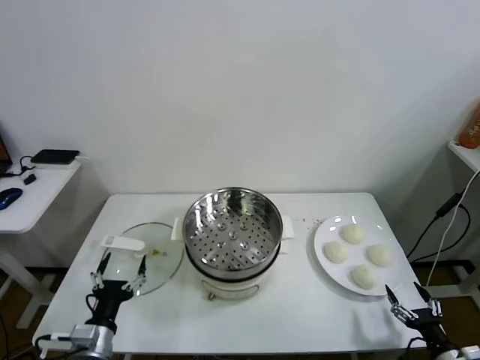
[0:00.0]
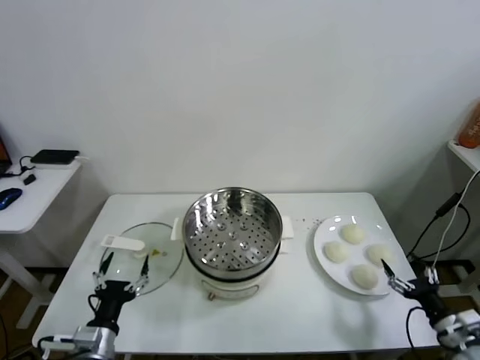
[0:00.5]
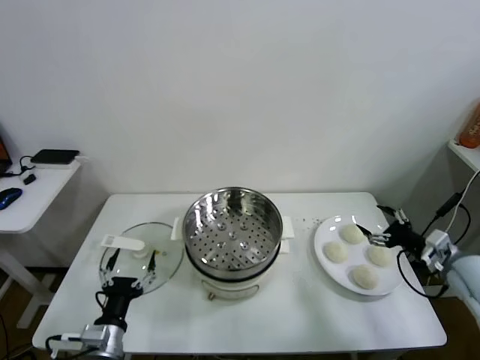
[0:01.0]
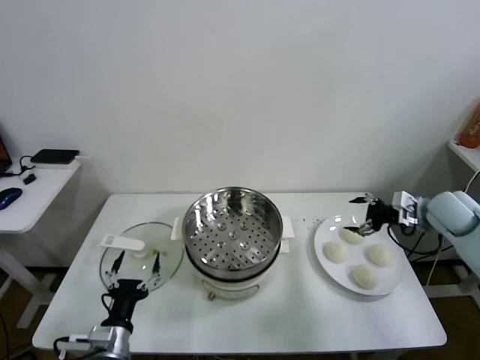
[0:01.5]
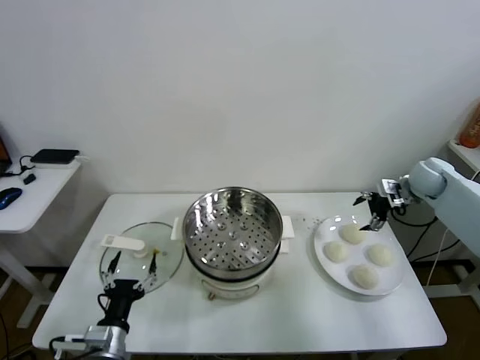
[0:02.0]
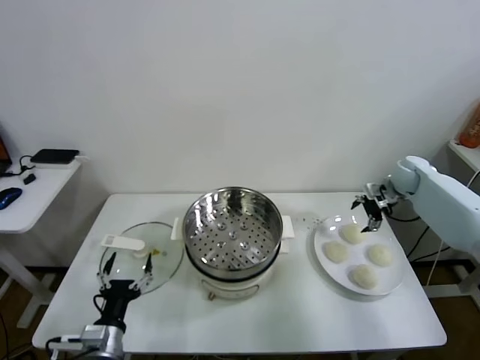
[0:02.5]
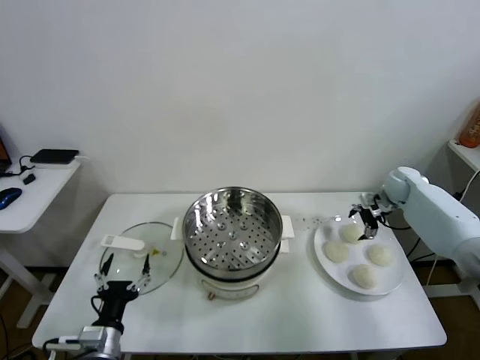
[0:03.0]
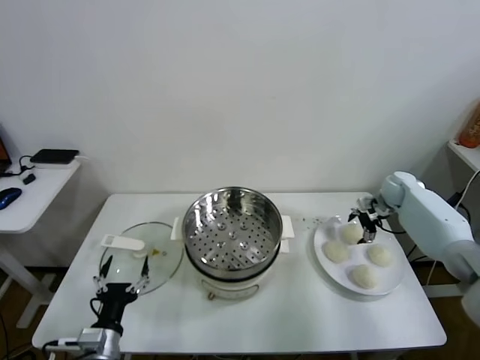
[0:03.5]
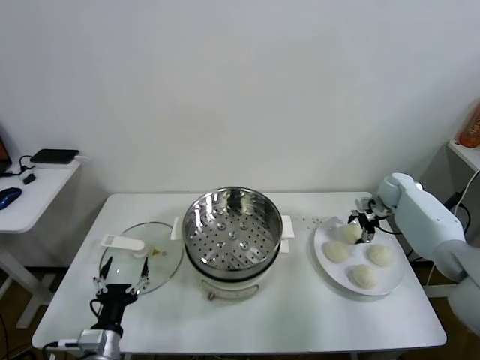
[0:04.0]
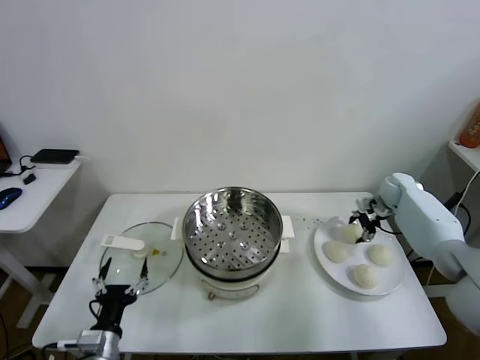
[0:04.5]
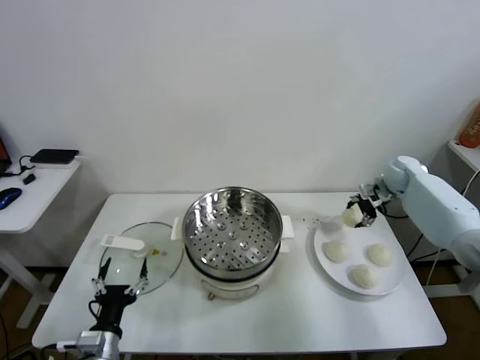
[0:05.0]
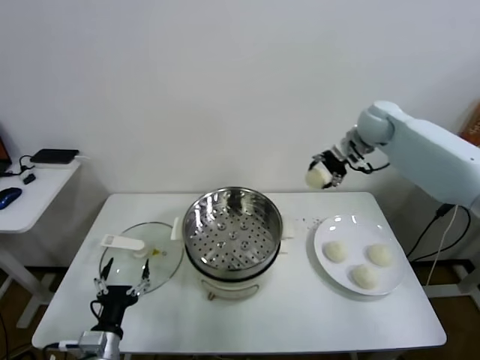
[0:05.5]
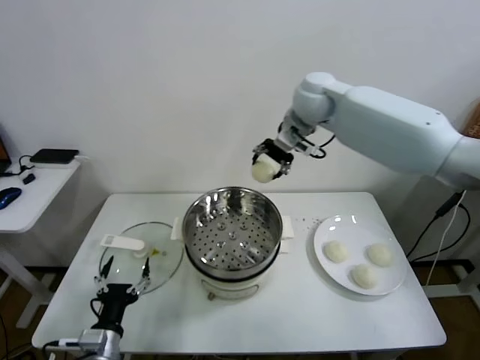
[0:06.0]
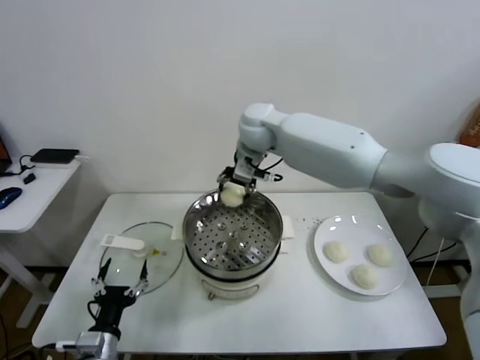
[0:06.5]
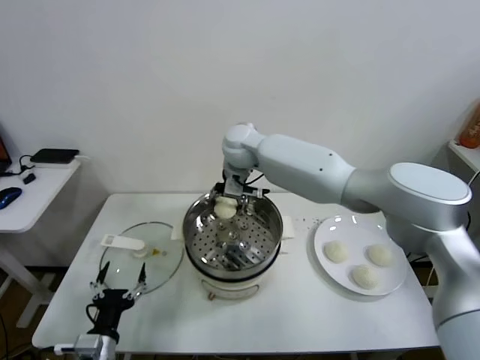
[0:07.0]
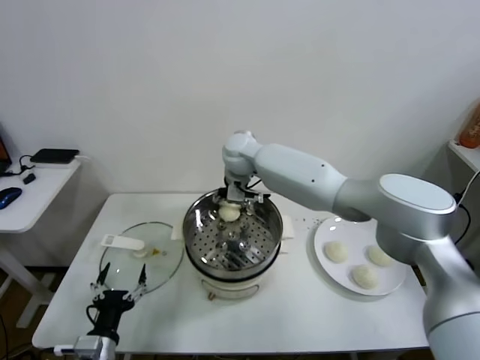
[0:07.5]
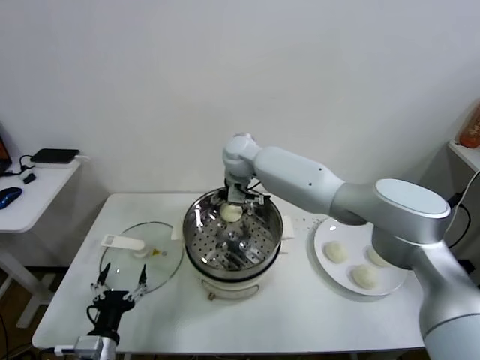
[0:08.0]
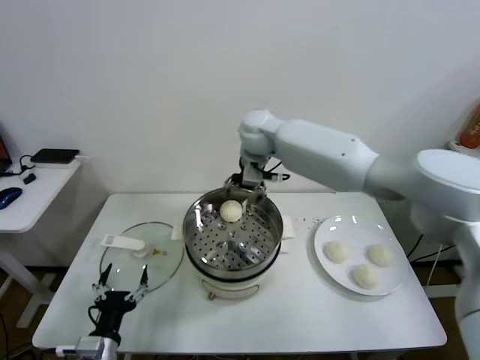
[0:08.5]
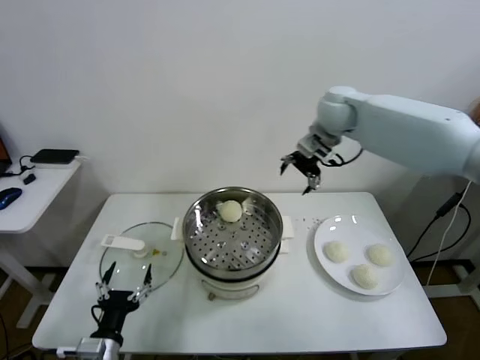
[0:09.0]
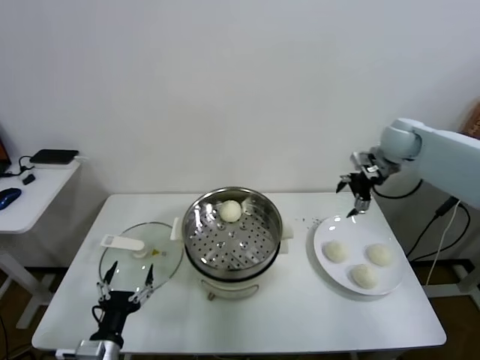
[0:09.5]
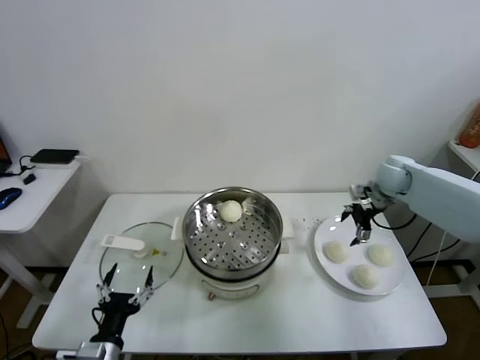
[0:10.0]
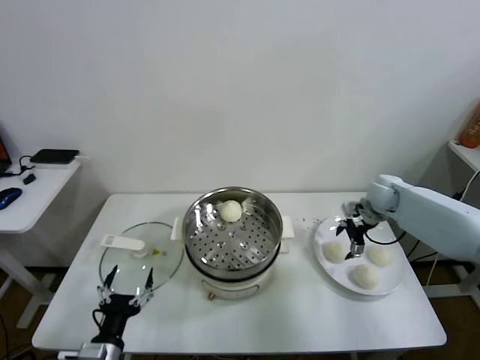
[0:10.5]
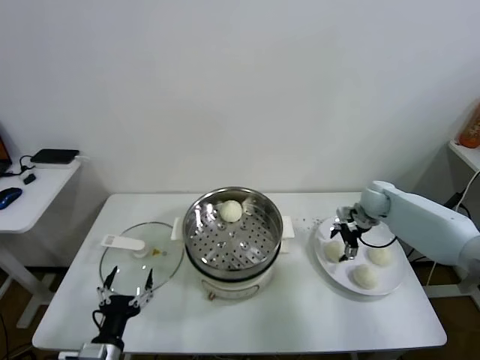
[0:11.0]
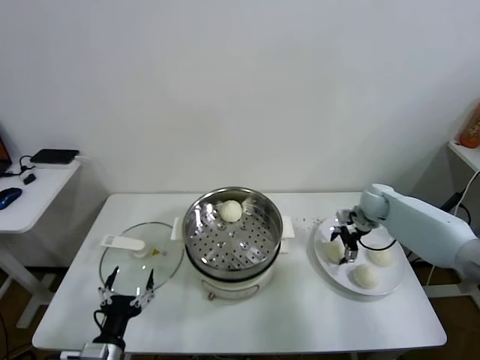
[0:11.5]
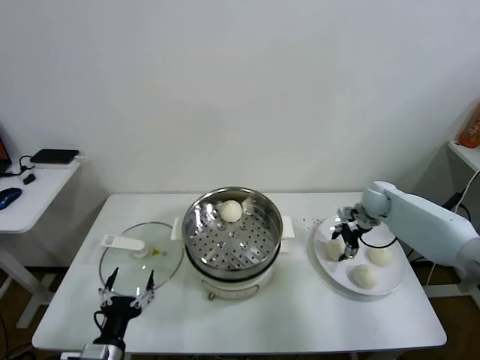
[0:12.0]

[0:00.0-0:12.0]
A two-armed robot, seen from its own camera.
Task of the whole recording: take steamed baozi put them in steamer.
Step, 0.0 to 4.0 s: Grasp the baozi in the plate with right gripper.
Step, 4.5 to 8.0 s: Place the baozi on the steamer with right gripper.
Step, 8.5 to 12.0 s: Grasp the baozi in the plate with right gripper.
2.0 to 4.0 s: The right gripper moves downward, some 10 cm, and closes.
4.0 to 6.0 s: The right gripper moves to the left and upward, approximately 40 cm.
6.0 to 8.0 s: The right gripper goes approximately 20 cm downward and to the left, and opens its fingers.
8.0 to 10.0 s: The right gripper goes about 40 cm to the right.
10.0 to 12.0 s: The right gripper shifts roughly 5 cm downward, and closes its fingers.

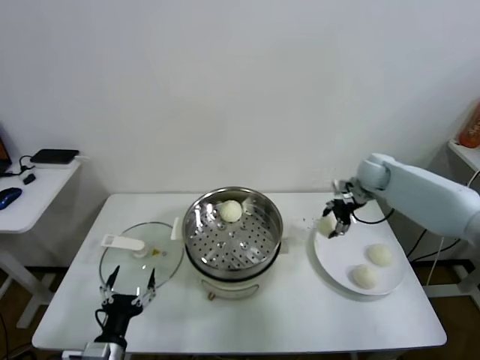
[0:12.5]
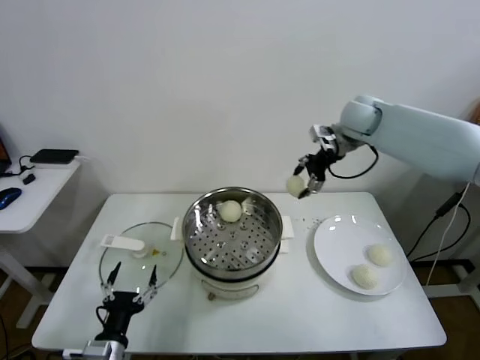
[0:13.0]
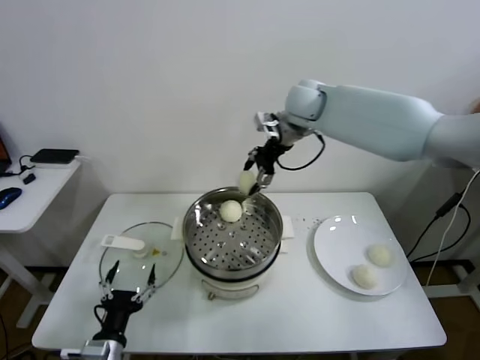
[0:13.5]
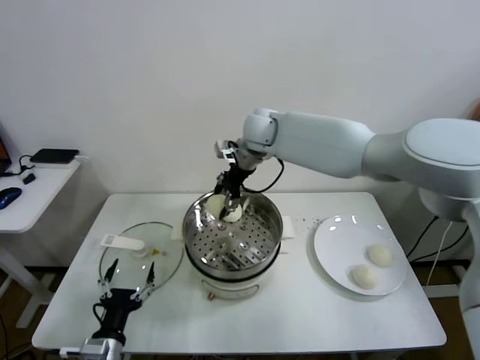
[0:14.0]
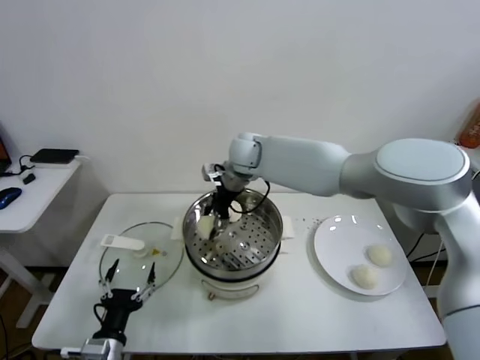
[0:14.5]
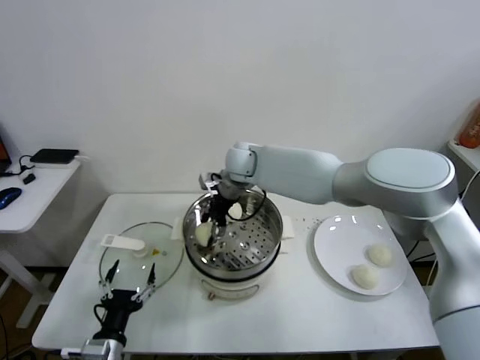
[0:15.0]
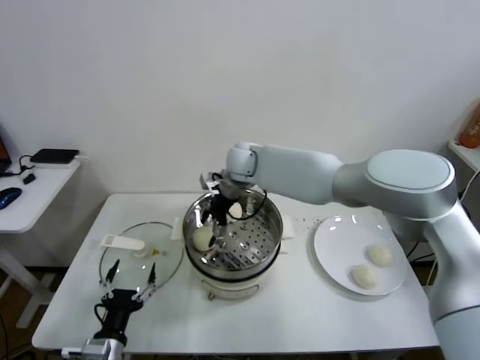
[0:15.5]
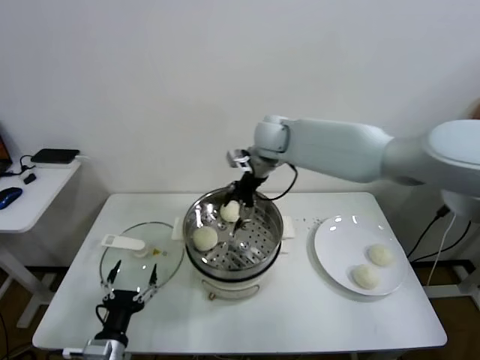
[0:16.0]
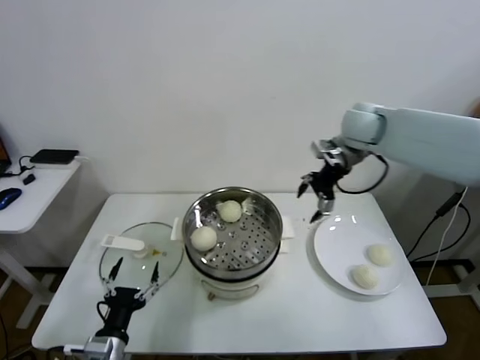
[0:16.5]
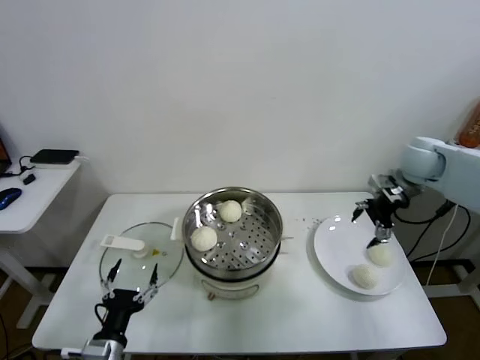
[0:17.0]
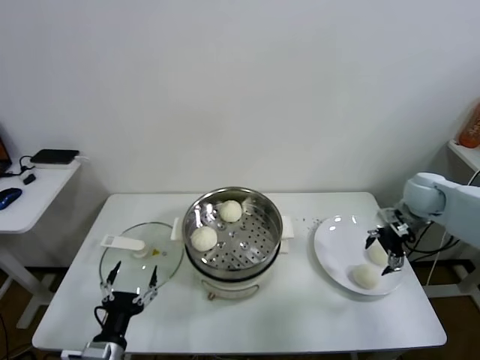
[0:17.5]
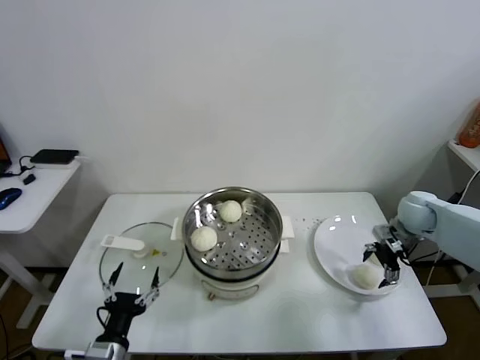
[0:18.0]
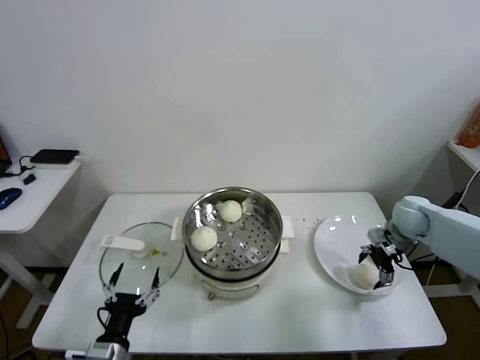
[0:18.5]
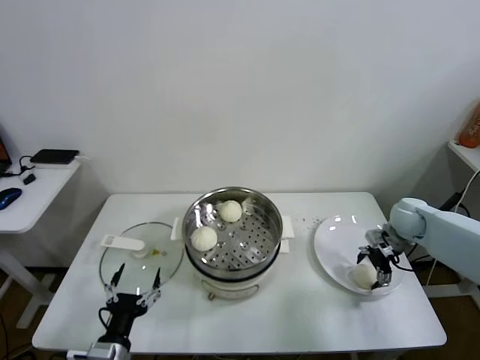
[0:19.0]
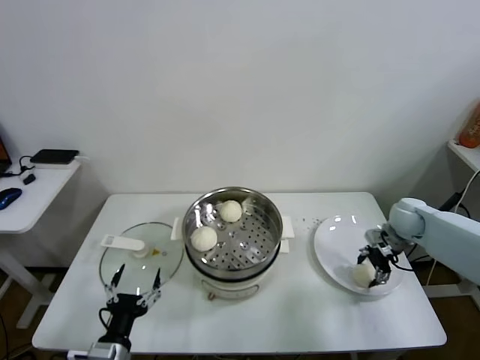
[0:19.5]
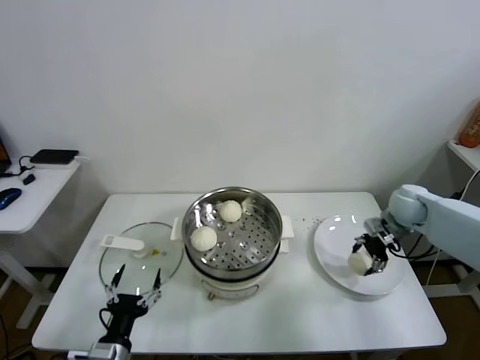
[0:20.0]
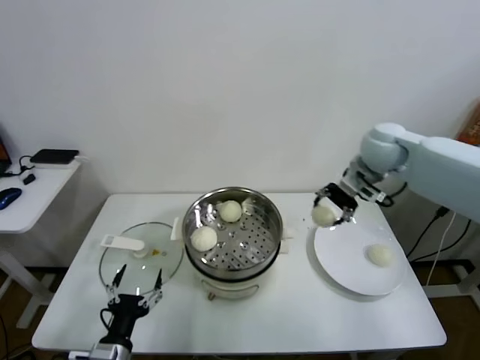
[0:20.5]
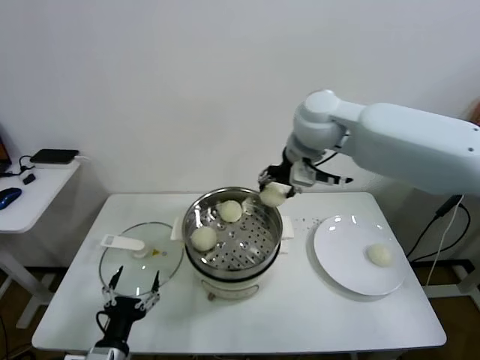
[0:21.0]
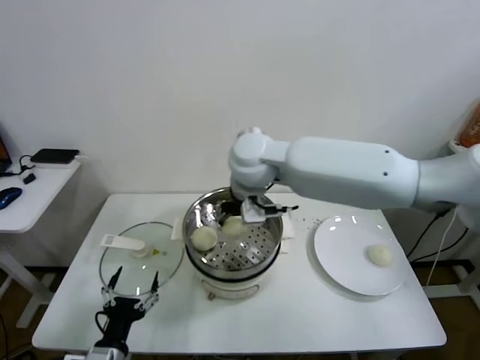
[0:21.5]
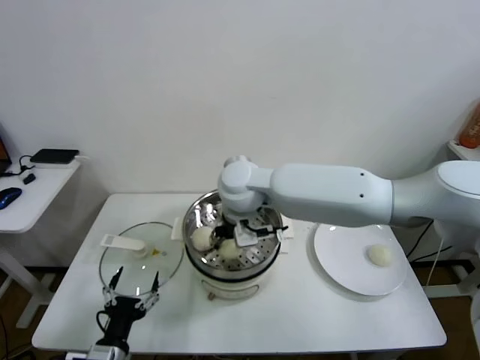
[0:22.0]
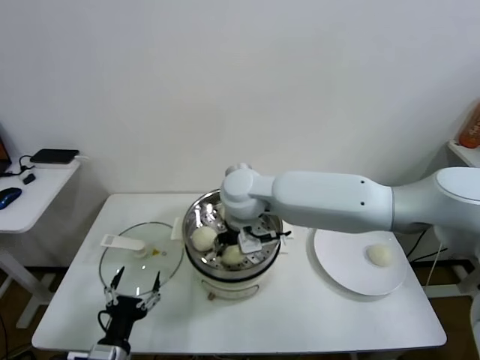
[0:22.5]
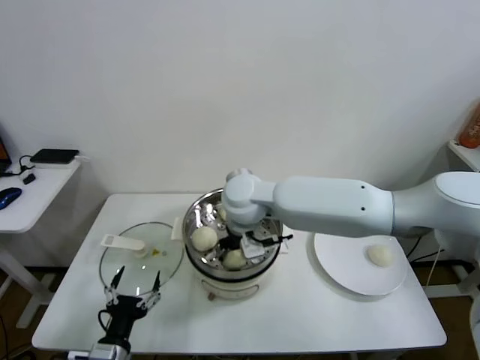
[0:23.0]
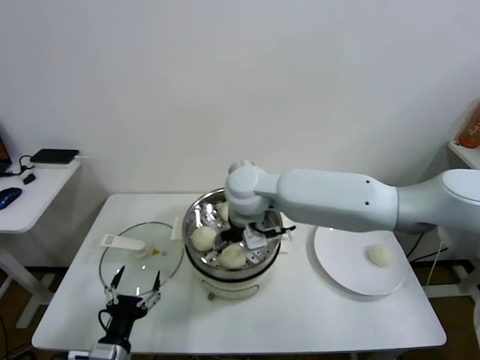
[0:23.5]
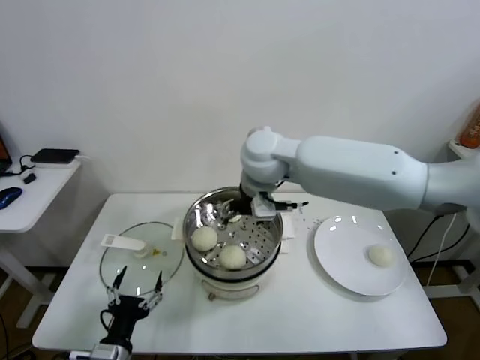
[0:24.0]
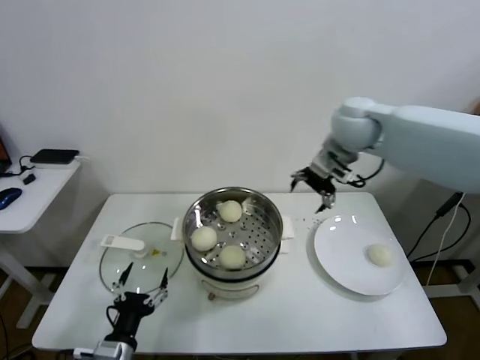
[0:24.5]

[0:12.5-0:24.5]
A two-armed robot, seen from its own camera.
Task of the whole recording: take steamed baozi put them in steamer.
Step, 12.5 to 15.5 s: Place the baozi on the steamer with right gripper.
Step, 16.0 to 19.0 s: Grasp the baozi in the plate with right gripper.
Step, 20.0 to 23.0 s: Place the baozi on the steamer with right gripper.
12.5 to 14.5 s: The right gripper goes some 35 cm to the left.
14.5 to 16.5 s: The right gripper travels to the right by roughly 25 cm, and opens.
16.5 to 18.5 s: The right gripper shifts roughly 25 cm downward and to the right.
18.5 to 20.5 s: The right gripper heads upward and to the left, covering some 25 cm, and closes.
20.5 to 22.5 s: The right gripper is displaced to the left by some 30 cm.
22.5 to 24.5 s: The right gripper heads to the right and upward, covering about 25 cm, and opens up.

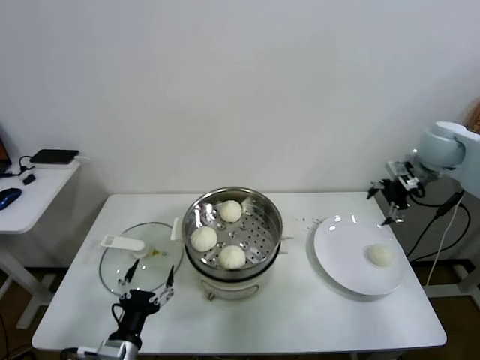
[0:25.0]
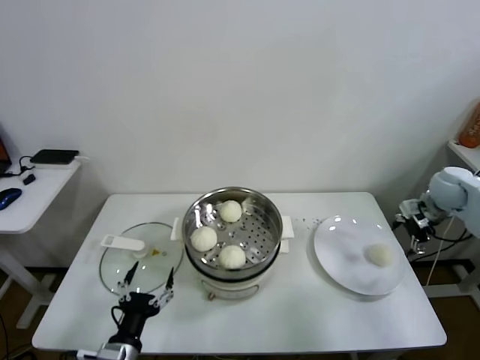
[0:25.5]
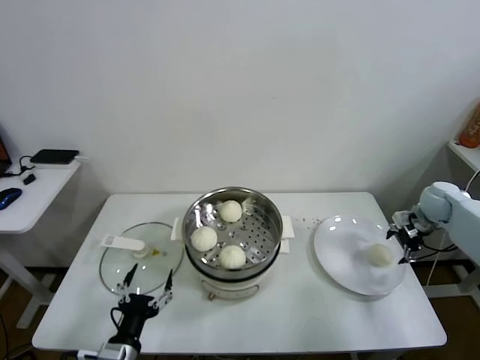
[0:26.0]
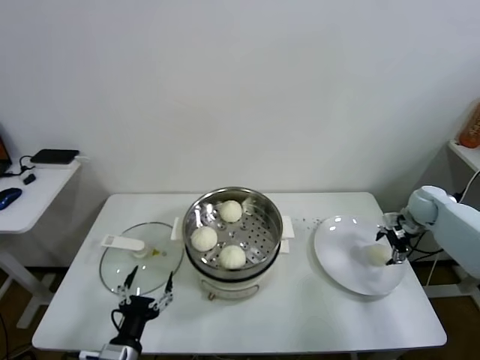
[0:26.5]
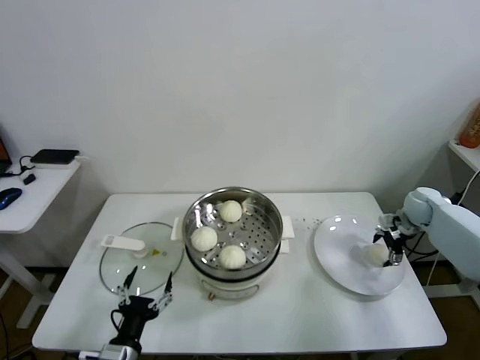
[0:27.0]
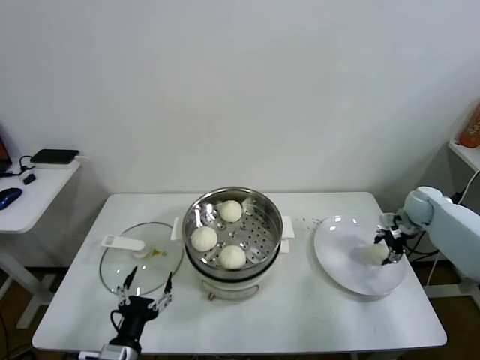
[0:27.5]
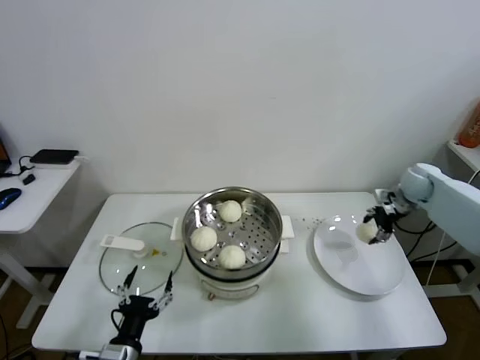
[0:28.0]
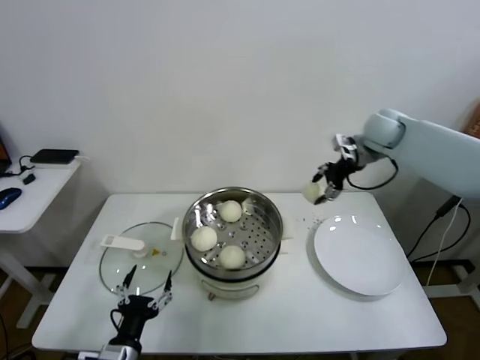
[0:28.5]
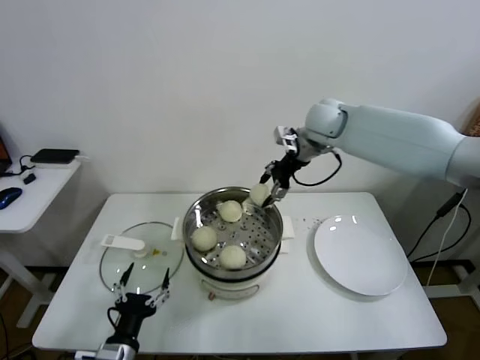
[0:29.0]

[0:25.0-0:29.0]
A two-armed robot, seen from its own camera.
Task of the whole recording: take steamed baozi put them in steamer.
Step, 25.0 to 27.0 s: Grasp the baozi in the plate with right gripper.
25.0 to 27.0 s: The right gripper goes approximately 20 cm downward.
27.0 to 29.0 s: The right gripper shifts some 35 cm to the left and upward, and closes its fingers.
